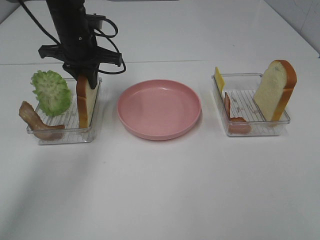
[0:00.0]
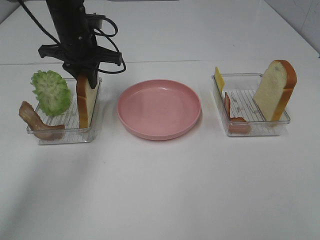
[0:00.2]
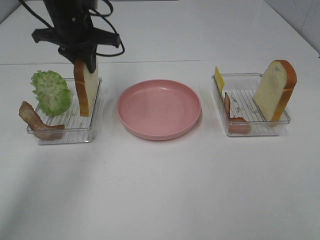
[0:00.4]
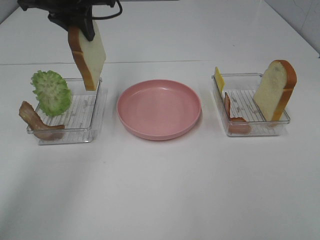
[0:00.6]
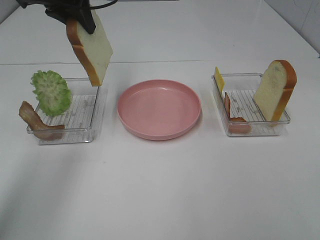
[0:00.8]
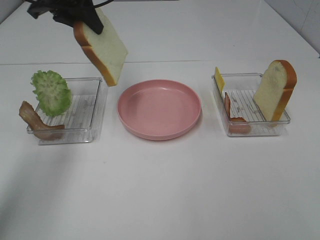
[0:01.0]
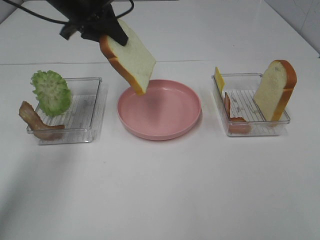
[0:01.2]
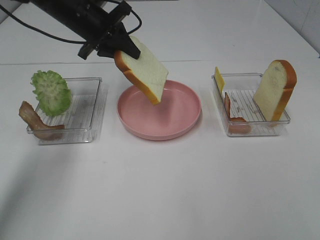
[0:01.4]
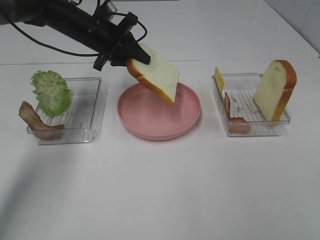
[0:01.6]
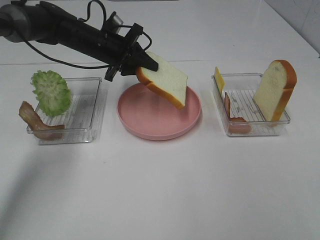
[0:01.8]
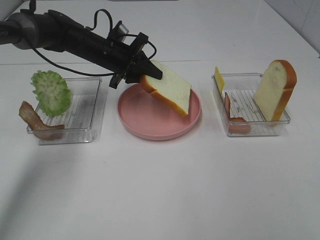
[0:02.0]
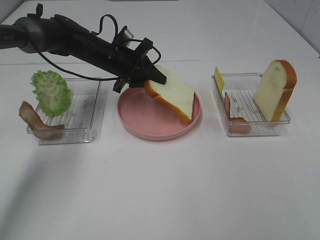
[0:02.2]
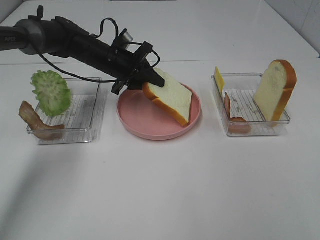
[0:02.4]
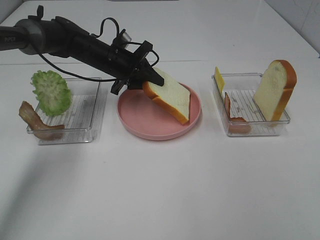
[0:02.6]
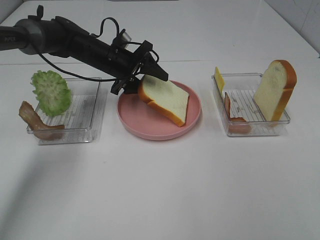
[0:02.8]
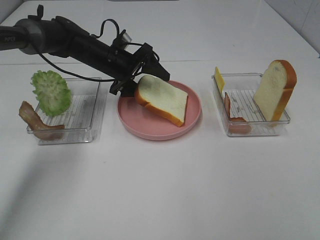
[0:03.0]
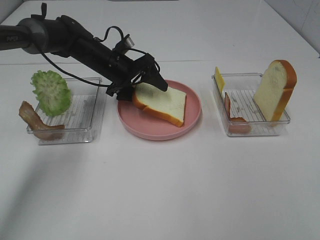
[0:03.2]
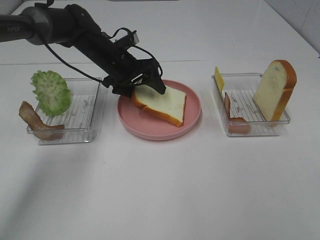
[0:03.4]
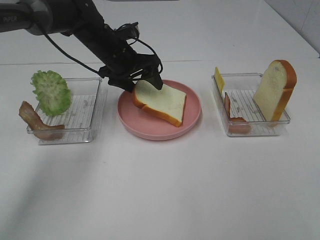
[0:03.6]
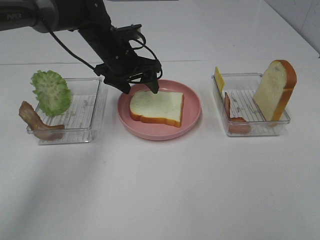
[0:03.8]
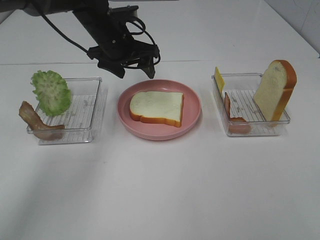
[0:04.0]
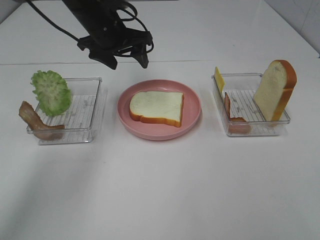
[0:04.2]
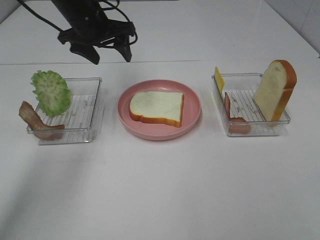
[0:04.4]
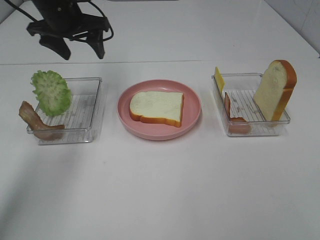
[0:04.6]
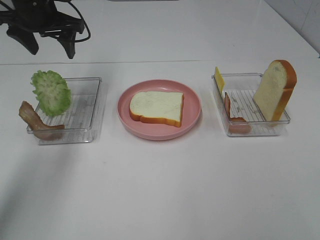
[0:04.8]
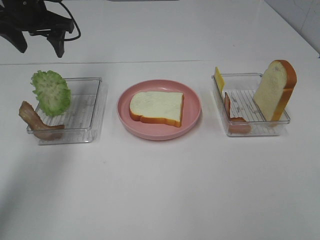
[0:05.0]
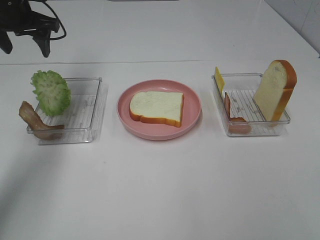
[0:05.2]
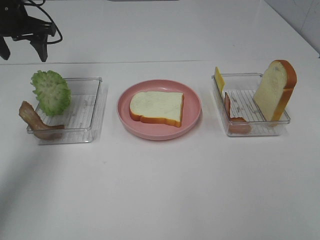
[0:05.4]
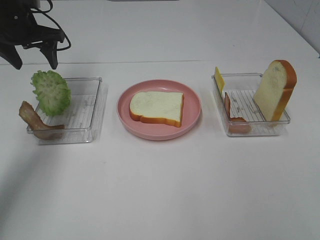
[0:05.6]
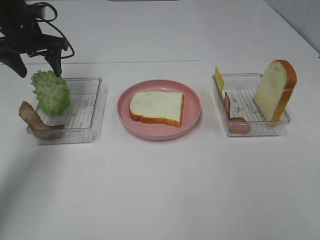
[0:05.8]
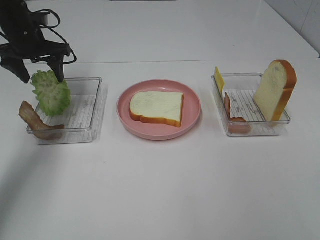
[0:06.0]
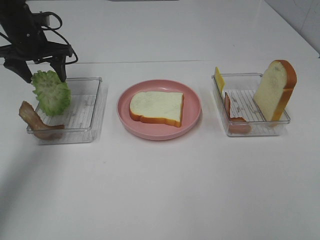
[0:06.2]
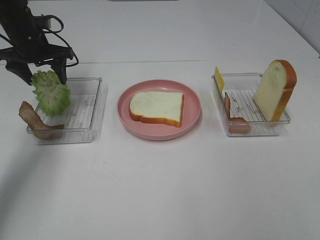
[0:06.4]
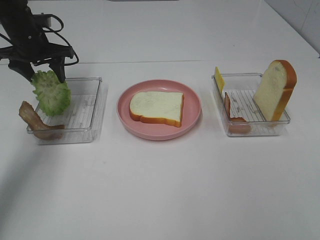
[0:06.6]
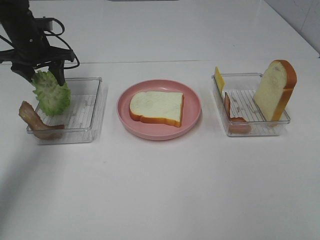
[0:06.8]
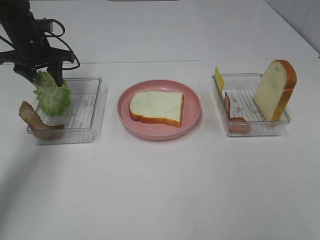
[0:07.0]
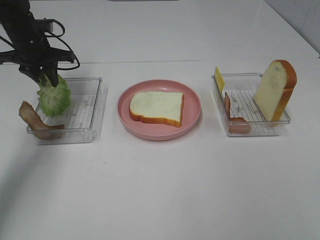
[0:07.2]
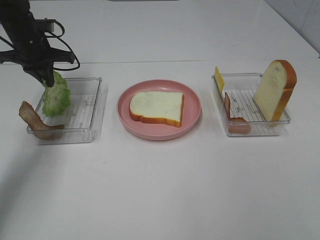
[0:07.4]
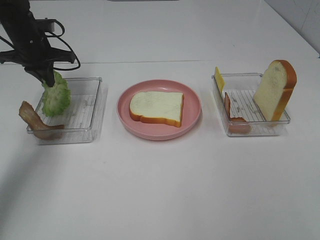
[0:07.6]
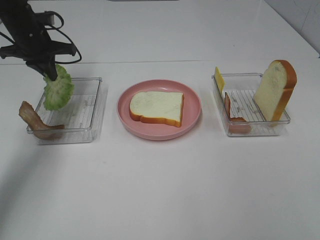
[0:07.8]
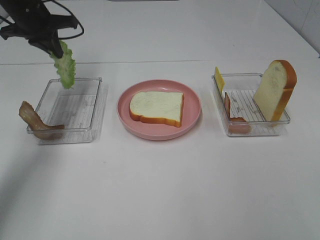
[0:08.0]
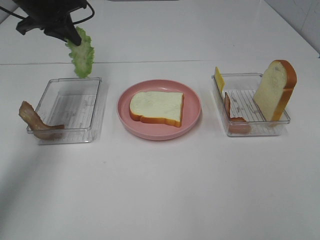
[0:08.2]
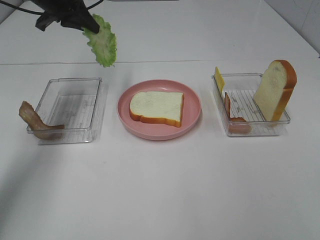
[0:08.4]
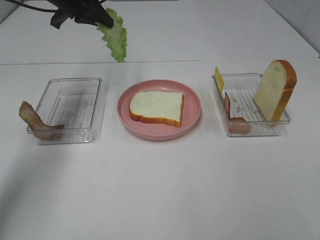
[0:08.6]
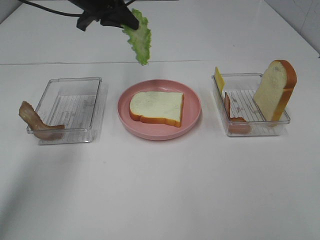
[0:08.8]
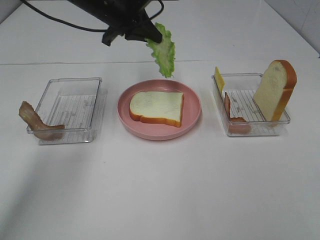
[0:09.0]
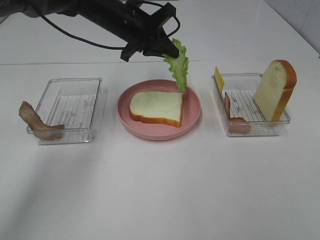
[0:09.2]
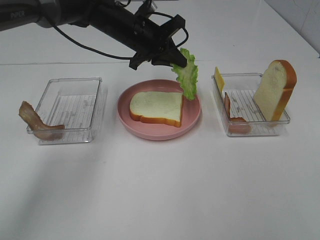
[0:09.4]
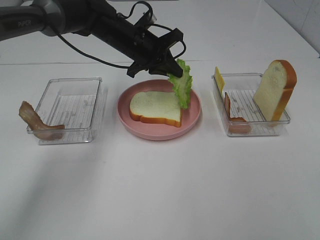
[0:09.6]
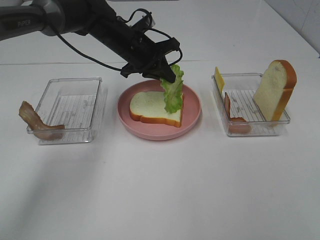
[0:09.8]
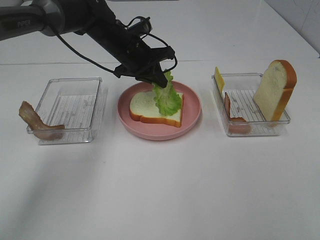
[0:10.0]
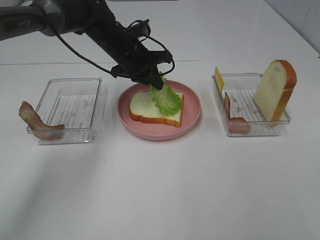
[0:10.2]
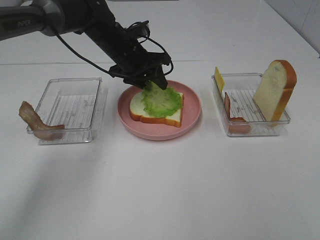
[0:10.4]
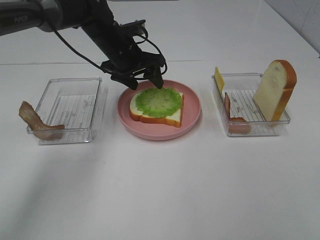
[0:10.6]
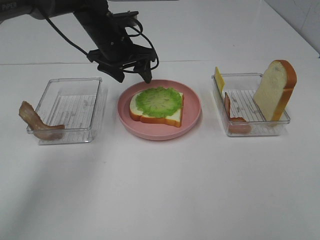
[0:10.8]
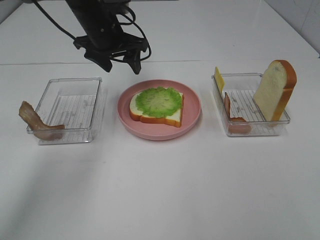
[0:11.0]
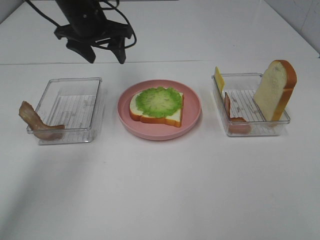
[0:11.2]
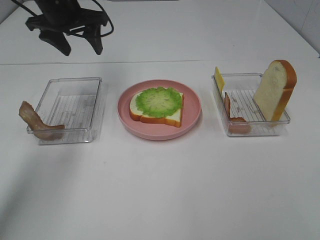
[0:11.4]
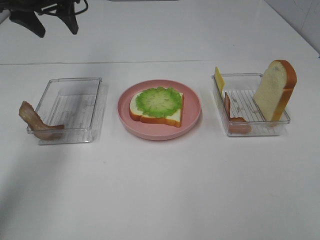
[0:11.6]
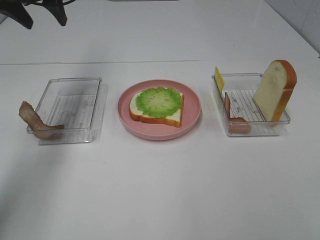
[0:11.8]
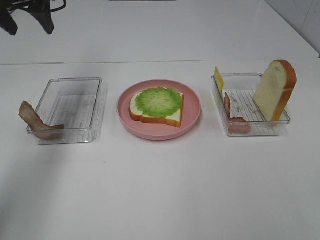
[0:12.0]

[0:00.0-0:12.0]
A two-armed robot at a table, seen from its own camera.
Task of the whole recording: Make sandwiches.
Step, 0.2 to 4.0 s: Left hand:place the bread slice on the plate.
Step, 4.2 to 7.4 s: Left hand:grab the lettuce slice.
Step, 7.6 to 10.8 s: Left hand:place the lettuce slice on the bread slice.
0.0 to 1.6 s: The left gripper reaches some 10 cm upward, then returns.
1.6 to 3.0 s: The left gripper goes approximately 5 cm downward, and opens up.
3.0 to 4.4 s: The left gripper heads upward, covering some 10 cm.
4.4 to 6.0 s: The left gripper is displaced to the left by roughly 10 cm.
6.0 to 7.6 s: The left gripper closes up.
7.6 to 9.0 s: The left gripper heads to the right, covering about 15 cm.
9.0 to 10.4 s: The left gripper moves downward, roughly 10 cm, and opens its fingers.
10.4 to 12.0 s: The left gripper heads to the left and upward, covering about 25 cm.

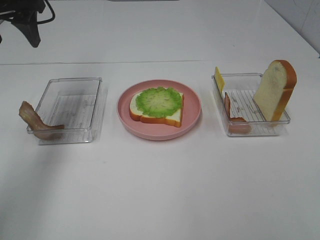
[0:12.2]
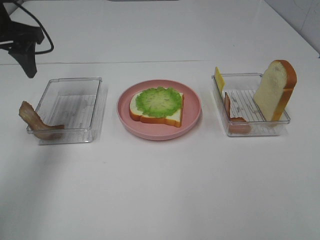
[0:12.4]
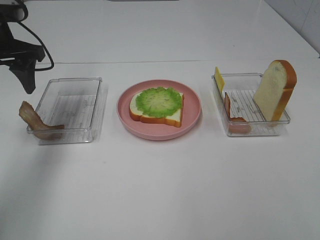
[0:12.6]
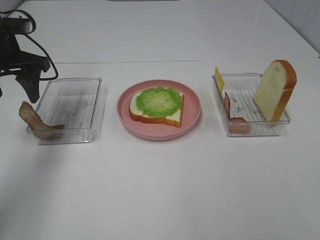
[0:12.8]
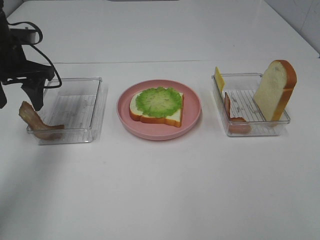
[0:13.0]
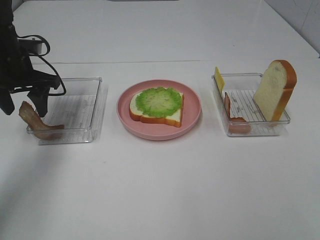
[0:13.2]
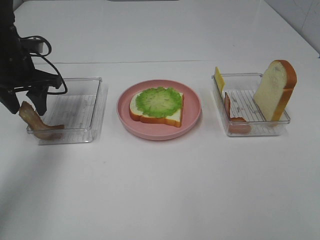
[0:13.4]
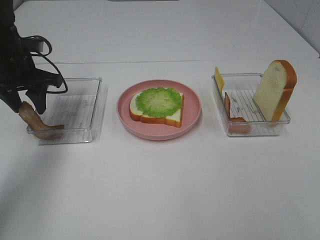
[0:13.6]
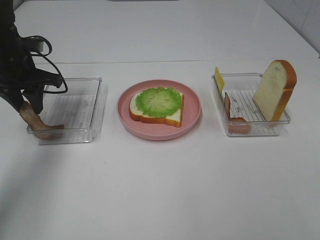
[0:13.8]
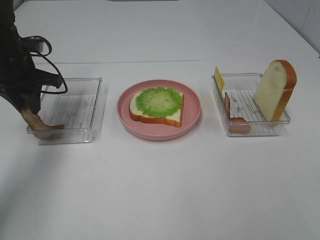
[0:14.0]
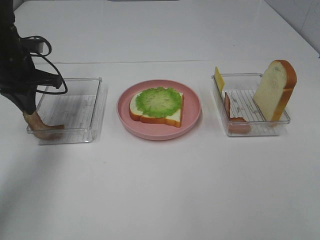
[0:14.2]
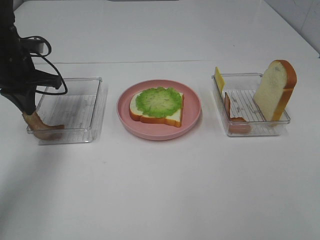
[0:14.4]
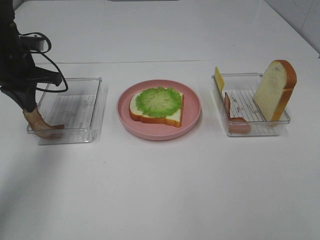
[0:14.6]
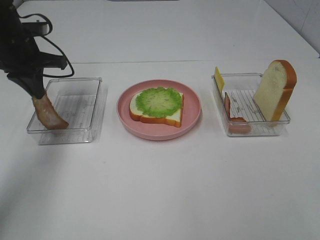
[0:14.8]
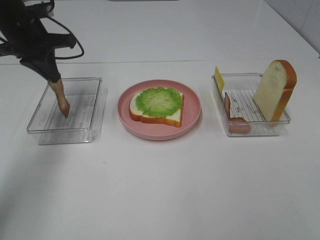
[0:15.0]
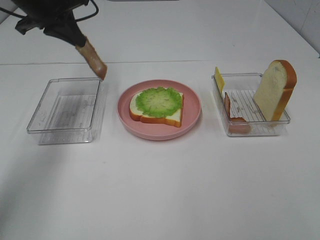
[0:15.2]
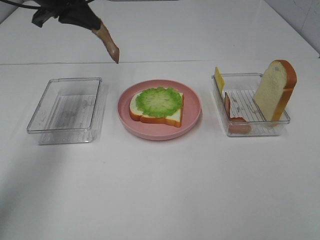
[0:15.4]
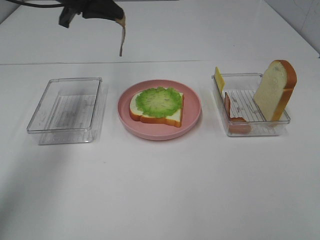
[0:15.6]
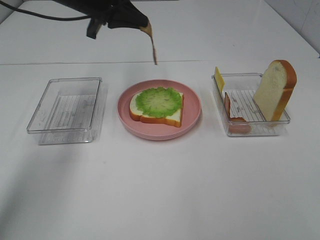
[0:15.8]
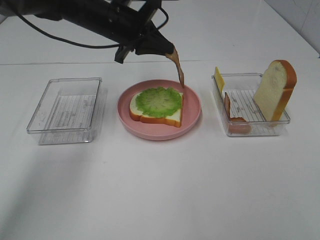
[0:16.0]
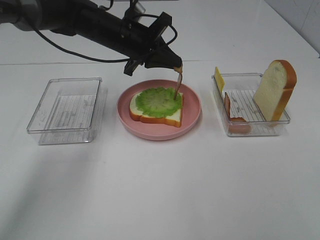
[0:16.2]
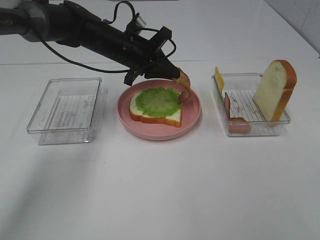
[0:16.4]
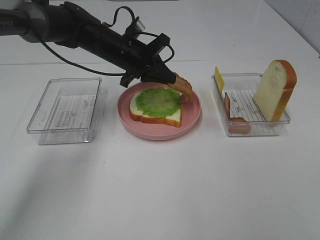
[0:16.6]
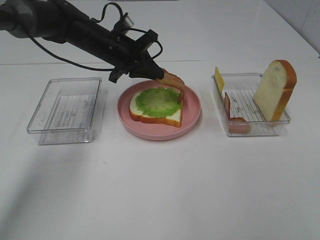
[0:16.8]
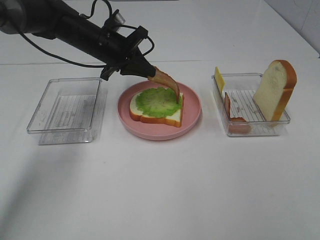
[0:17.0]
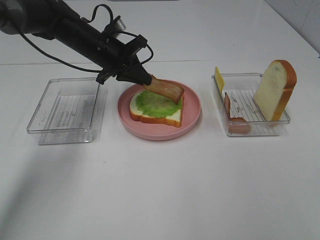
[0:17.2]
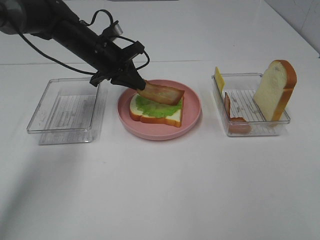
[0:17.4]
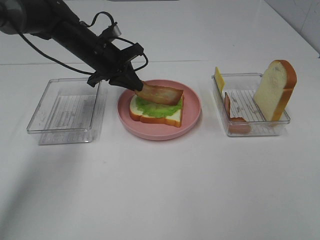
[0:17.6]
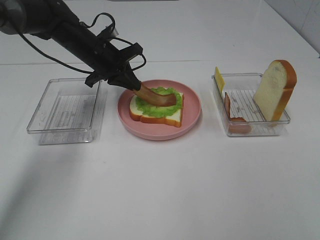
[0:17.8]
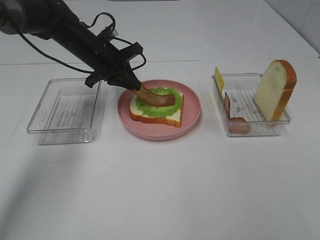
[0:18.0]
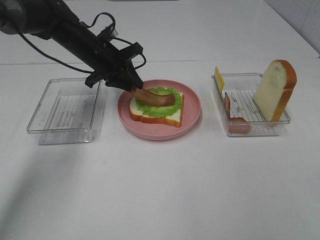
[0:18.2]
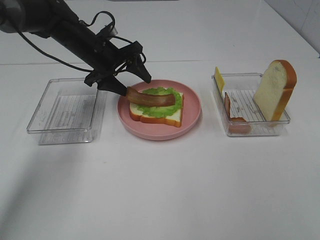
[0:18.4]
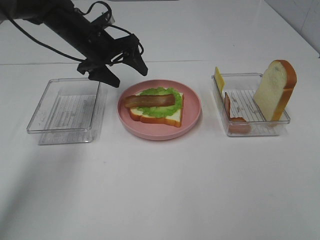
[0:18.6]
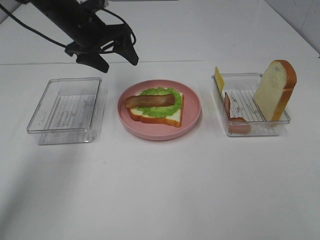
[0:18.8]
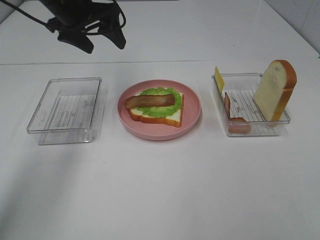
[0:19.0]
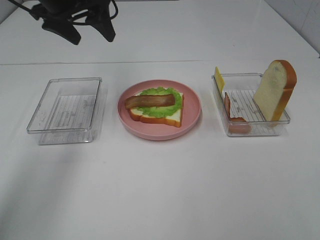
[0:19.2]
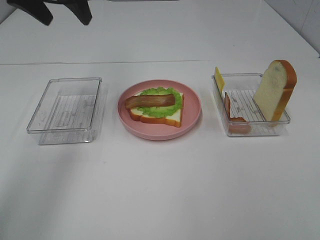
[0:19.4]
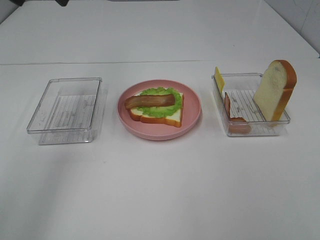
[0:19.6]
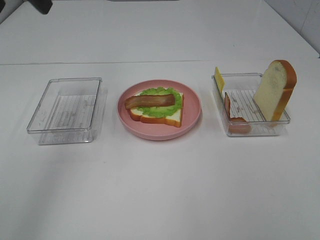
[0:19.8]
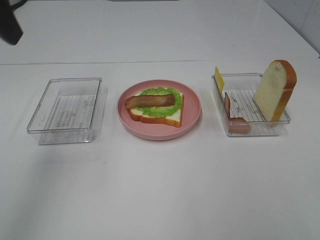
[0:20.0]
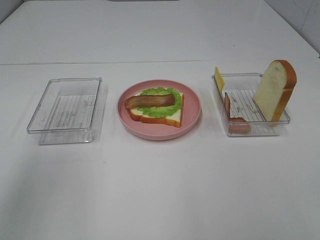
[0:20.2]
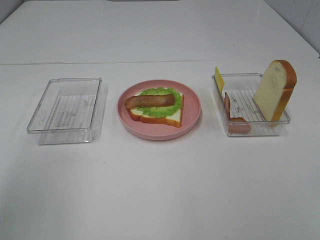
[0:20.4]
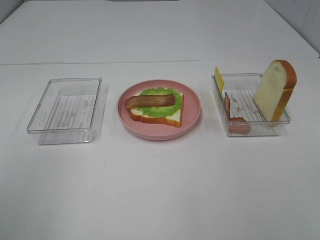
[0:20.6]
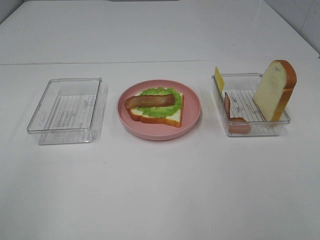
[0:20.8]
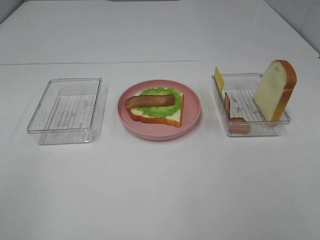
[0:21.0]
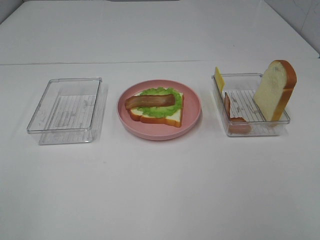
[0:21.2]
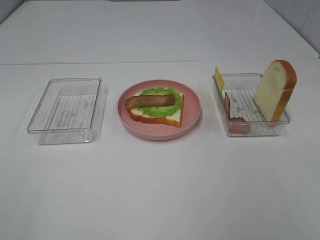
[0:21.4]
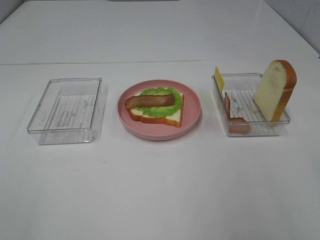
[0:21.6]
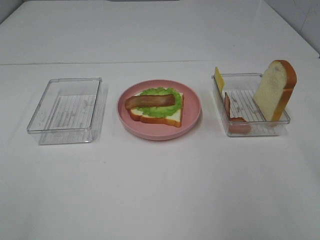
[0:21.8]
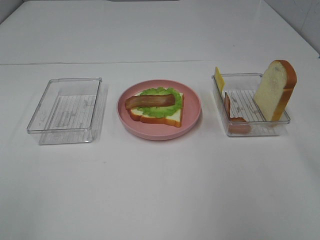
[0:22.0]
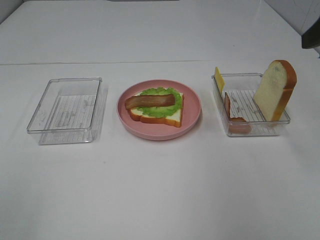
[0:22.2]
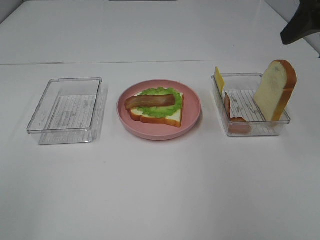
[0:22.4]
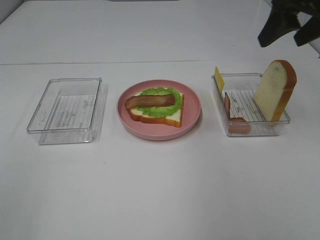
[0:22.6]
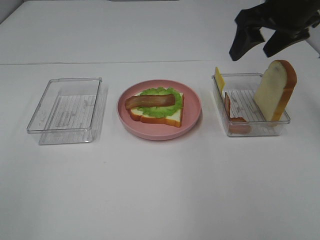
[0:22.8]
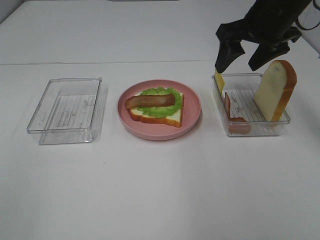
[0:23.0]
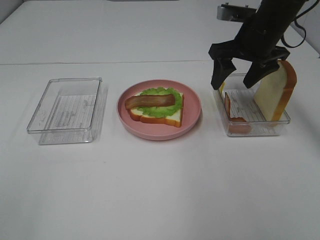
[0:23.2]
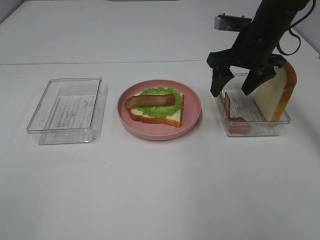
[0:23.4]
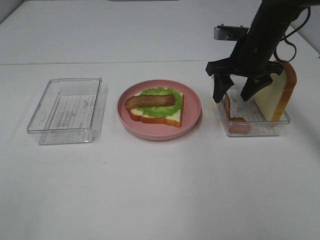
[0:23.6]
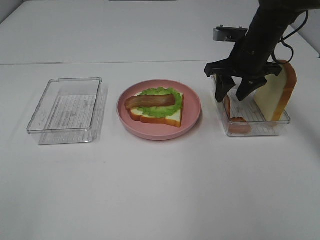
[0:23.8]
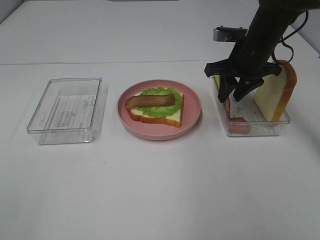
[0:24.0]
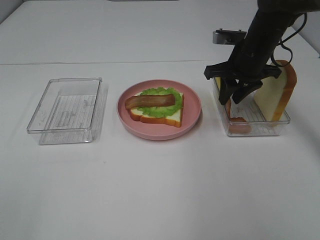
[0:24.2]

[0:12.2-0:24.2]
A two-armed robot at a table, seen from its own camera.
Task of the whole recording: Make sandwiches.
Step, 12.2 to 14.4 s: Left hand:grab the bacon.
Step, 14.6 to 18.6 s: Left hand:place bacon on lettuce slice.
12.2 to 13.8 s: The left gripper goes some 15 cm downward, and closes up.
13.8 to 15.2 s: The left gripper shifts some 10 cm upward, and closes its fingers.
15.2 to 16.6 s: The left gripper shifts some 20 cm to the right and downward.
16.6 to 18.2 s: The left gripper moves to the left, approximately 5 cm.
18.2 to 19.8 s: The left gripper goes some 30 cm upward and backward, and opens its fingers.
19.8 to 21.2 s: The left gripper is displaced backward by roughly 30 cm.
21.2 to 22.6 s: The right gripper is displaced forward by some 35 cm.
22.6 to 24.2 s: The right gripper goes some 15 cm downward, forward and to the left, and closes its fingers.
